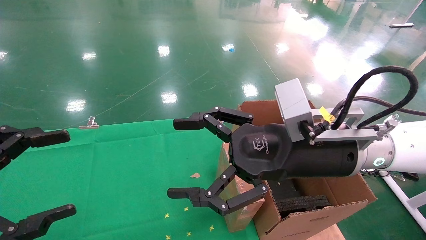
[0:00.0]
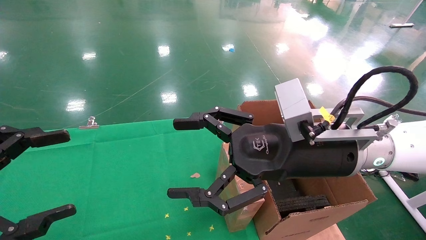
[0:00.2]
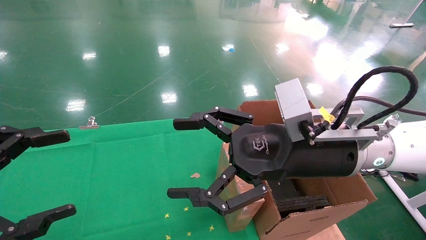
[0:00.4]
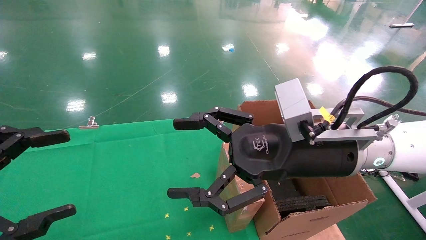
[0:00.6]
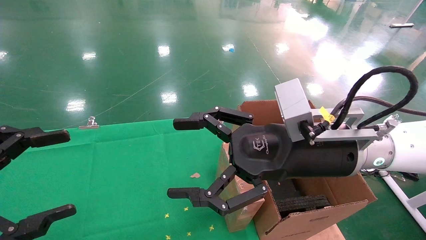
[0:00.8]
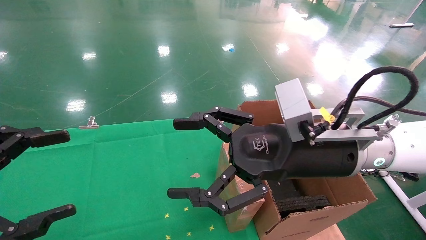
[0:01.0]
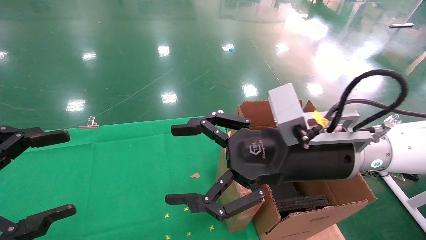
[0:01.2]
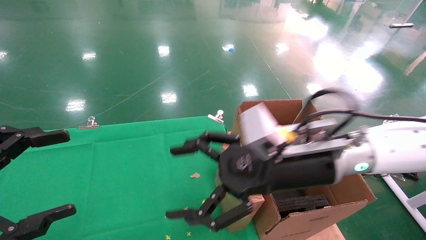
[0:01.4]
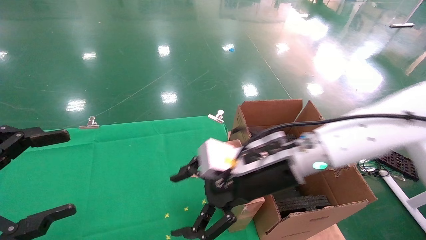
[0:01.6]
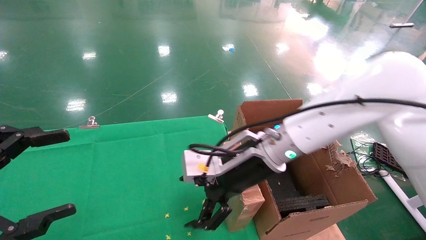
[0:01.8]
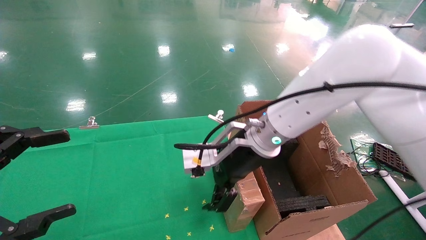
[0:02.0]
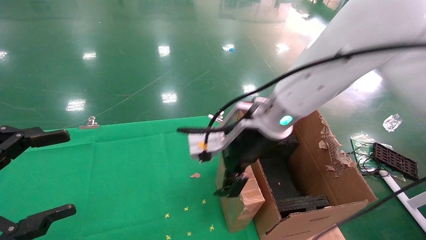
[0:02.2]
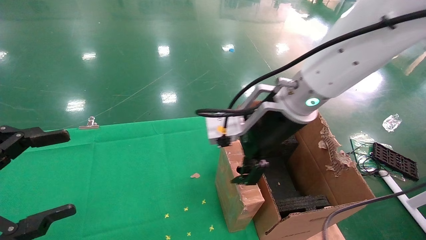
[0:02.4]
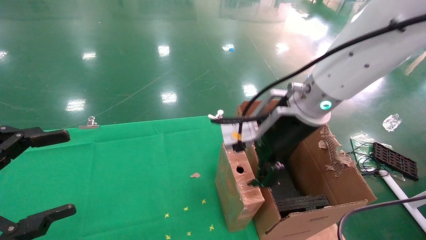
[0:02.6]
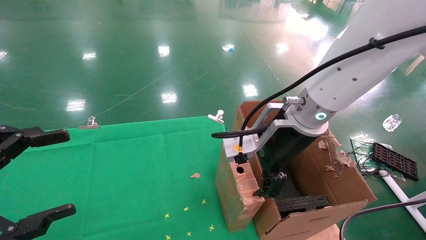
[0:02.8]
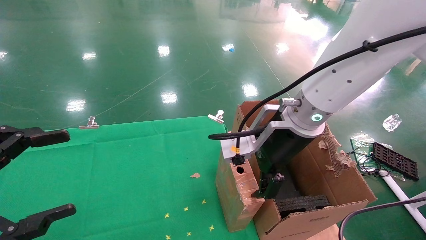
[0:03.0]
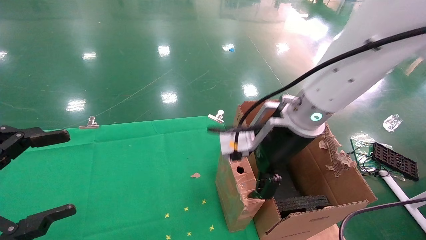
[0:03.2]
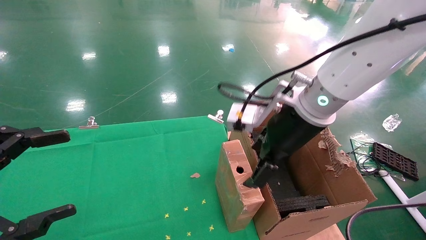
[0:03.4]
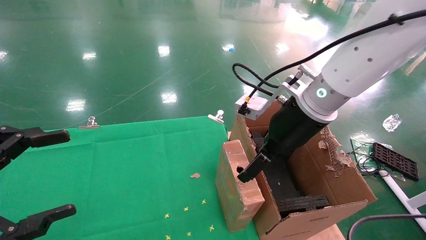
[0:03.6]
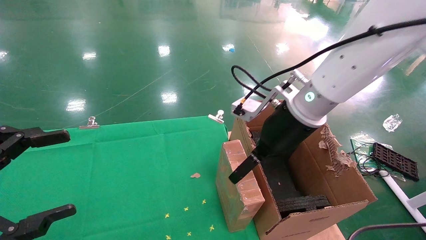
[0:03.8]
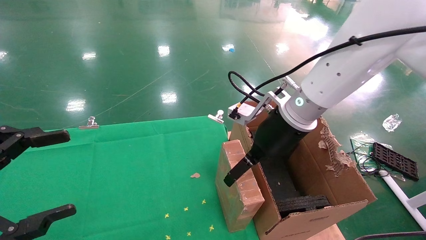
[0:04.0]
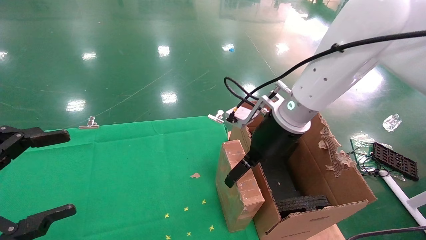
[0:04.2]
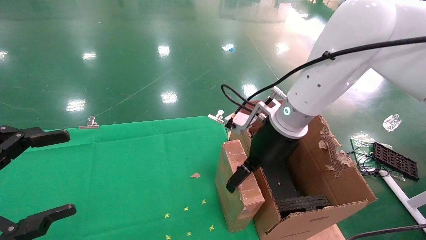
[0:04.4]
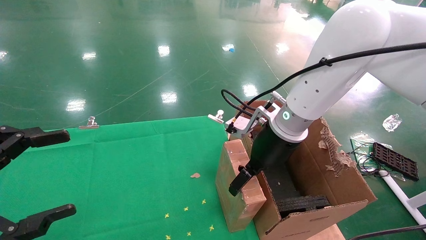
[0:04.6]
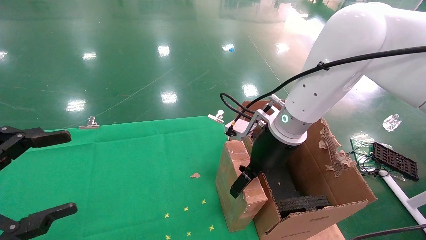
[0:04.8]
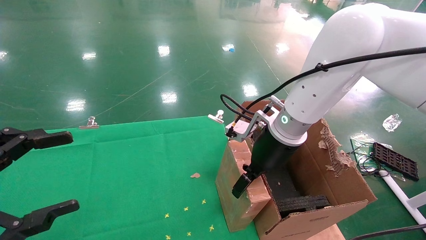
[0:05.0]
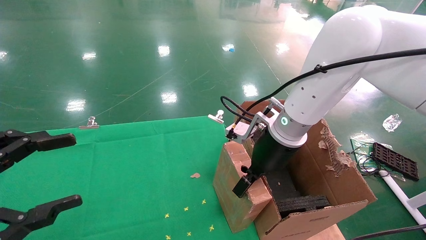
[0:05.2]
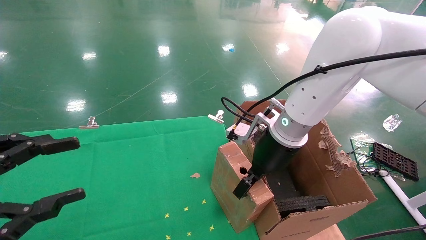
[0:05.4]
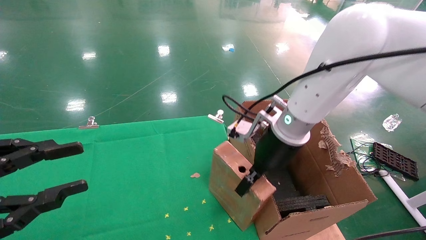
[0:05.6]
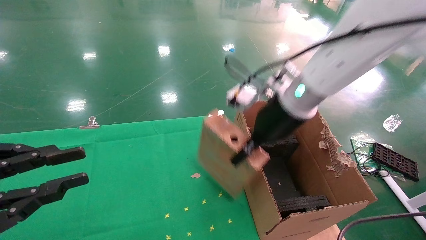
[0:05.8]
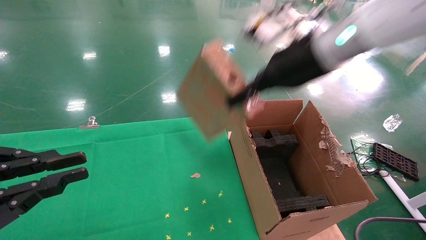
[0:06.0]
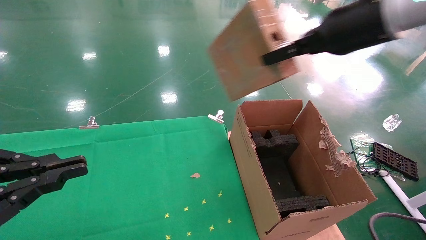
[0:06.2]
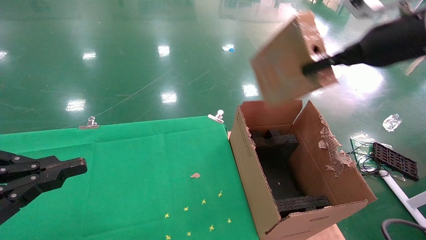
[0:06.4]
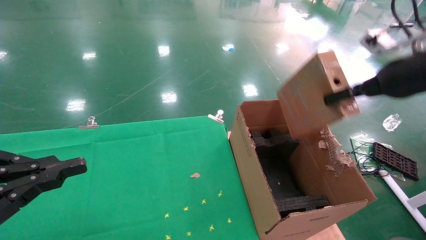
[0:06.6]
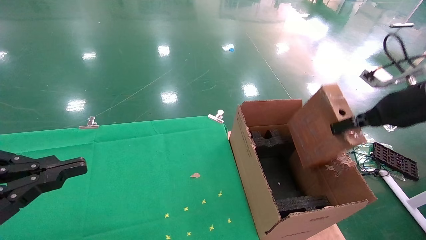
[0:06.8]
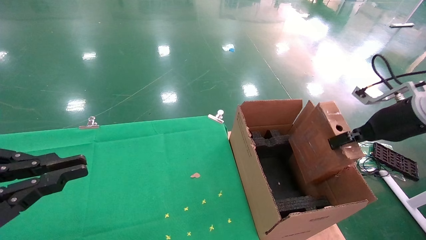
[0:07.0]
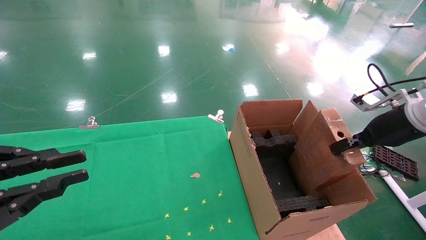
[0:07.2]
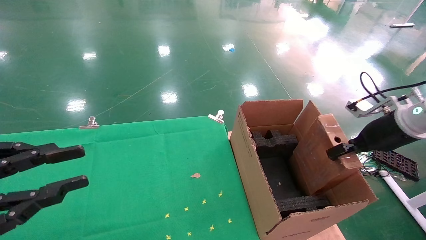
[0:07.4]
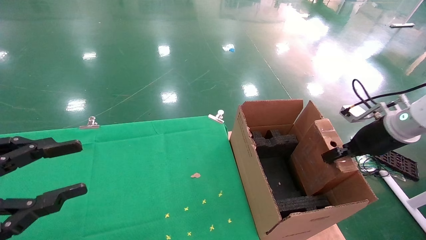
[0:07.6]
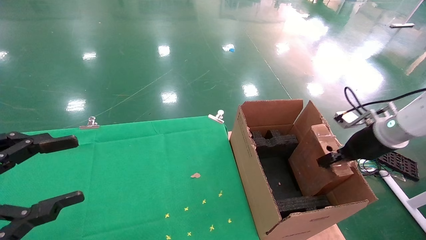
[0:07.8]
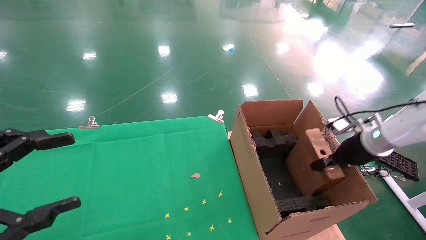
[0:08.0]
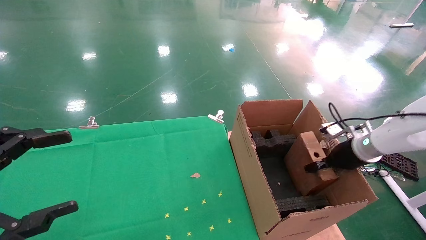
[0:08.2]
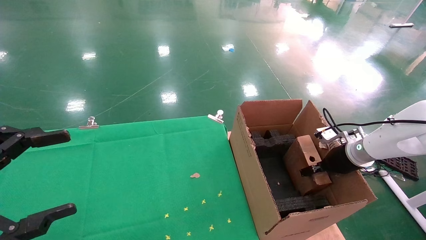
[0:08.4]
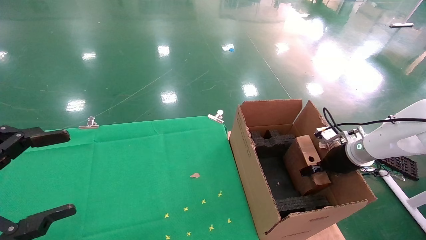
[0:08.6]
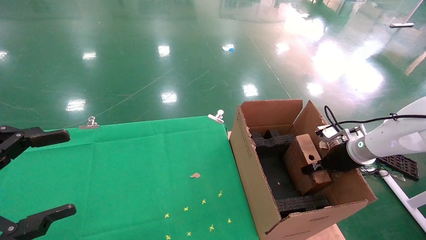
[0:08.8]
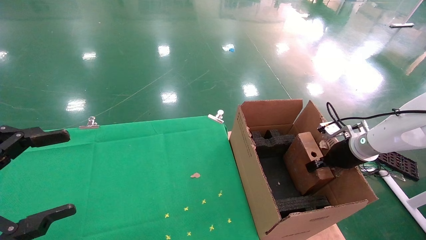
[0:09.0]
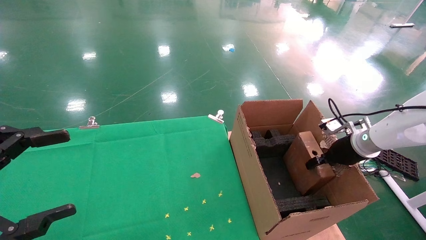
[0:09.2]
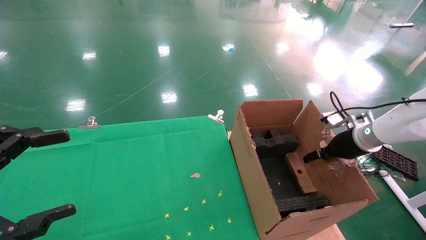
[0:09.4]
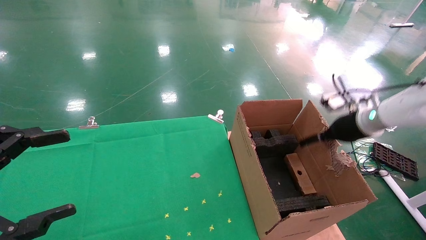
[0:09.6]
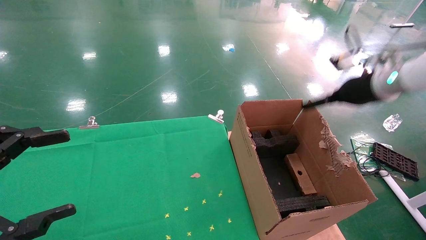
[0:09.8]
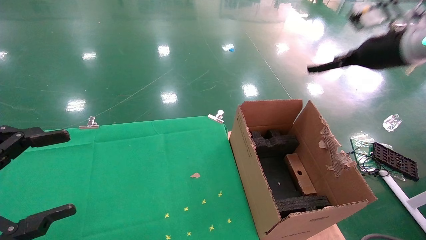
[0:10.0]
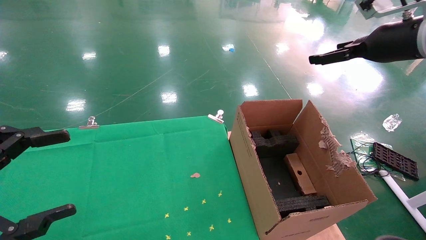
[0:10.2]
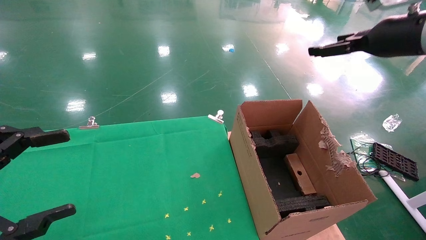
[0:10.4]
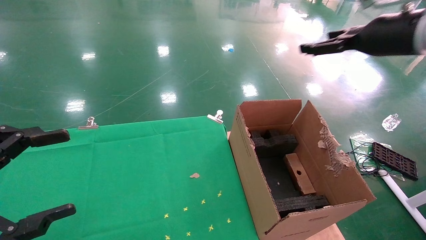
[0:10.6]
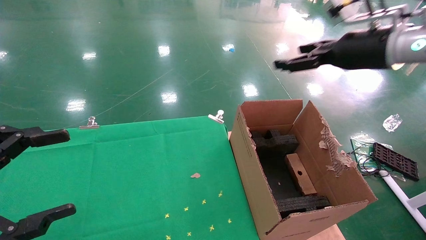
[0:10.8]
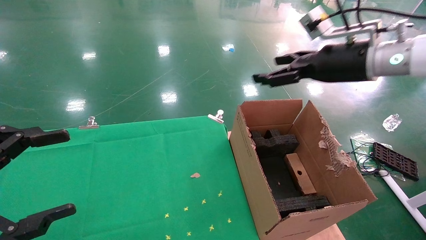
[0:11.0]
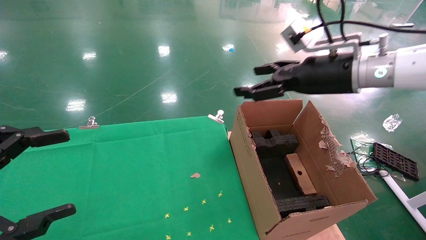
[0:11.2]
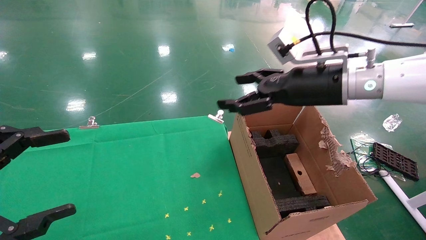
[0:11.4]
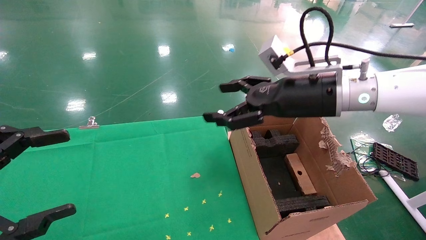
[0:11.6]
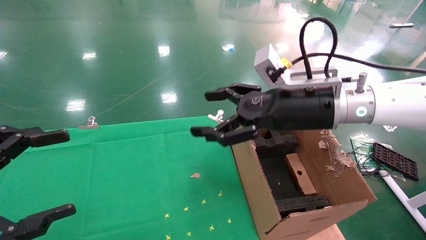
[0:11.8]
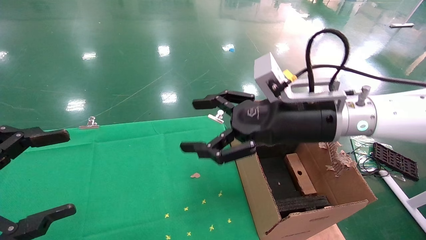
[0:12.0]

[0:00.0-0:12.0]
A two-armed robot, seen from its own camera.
Task of the whole recording: using a robotic arm to pick up a cardboard box and palace it the carton.
Step, 0:01.2 to 0:05.4: Pick up the mouse and the power cord paper box.
Step, 0:05.6 to 0:10.0: Place the mouse and the power cord paper box into the container.
0:00.0 to 0:01.6: The right gripper ends up about 10 cm from where it was.
0:01.6 to 0:03.0: The right gripper goes approximately 5 cm upward.
0:03.0 to 0:04.4: The right gripper moves about 5 cm.
0:04.4 to 0:06.0: The left gripper closes its fingers; the right gripper moves upward and to the right, roughly 15 cm, and closes its fingers.
0:06.0 to 0:07.6: The right gripper heads to the right and downward, covering about 25 cm.
0:07.6 to 0:09.0: The right gripper shifts some 10 cm downward and forward. The left gripper opens its fingers.
0:09.0 to 0:10.4: The right gripper is displaced upward by roughly 25 cm, and opens its fingers.
0:10.4 to 0:12.0: The right gripper shifts roughly 25 cm to the left and downward.

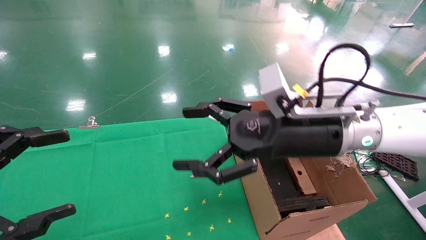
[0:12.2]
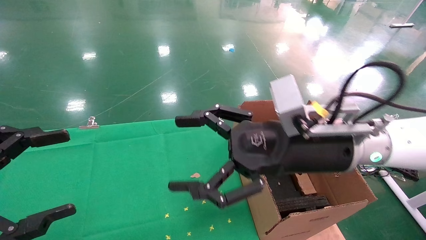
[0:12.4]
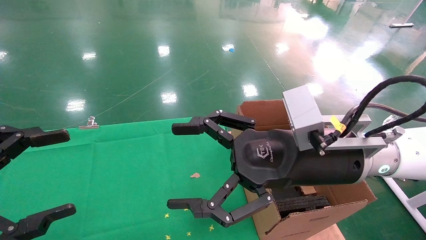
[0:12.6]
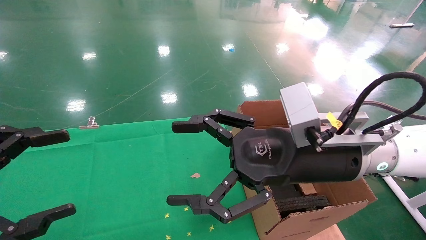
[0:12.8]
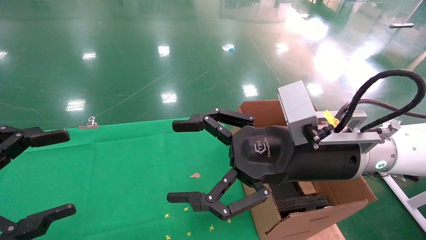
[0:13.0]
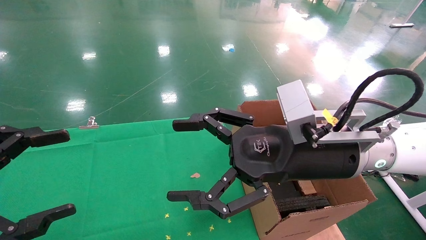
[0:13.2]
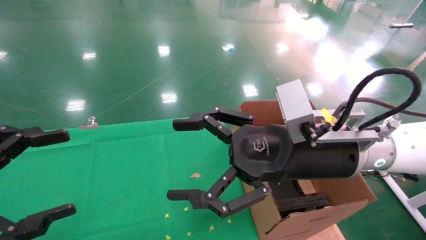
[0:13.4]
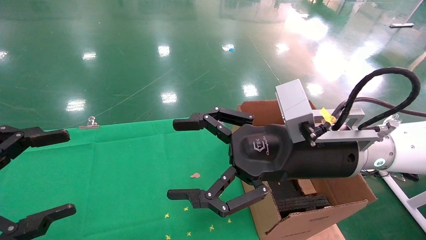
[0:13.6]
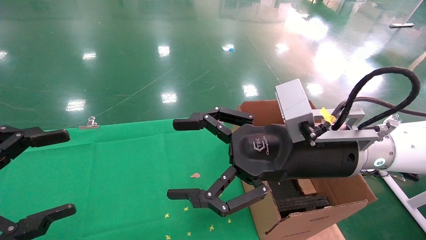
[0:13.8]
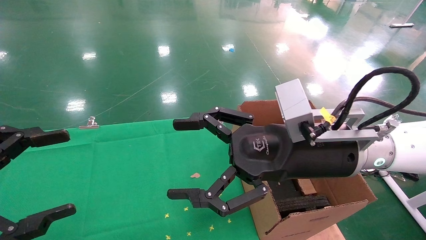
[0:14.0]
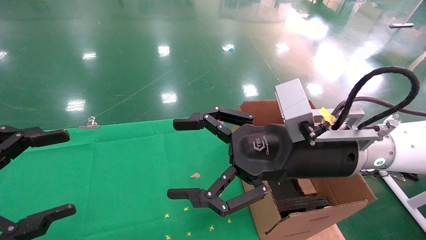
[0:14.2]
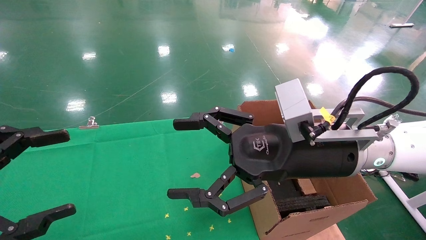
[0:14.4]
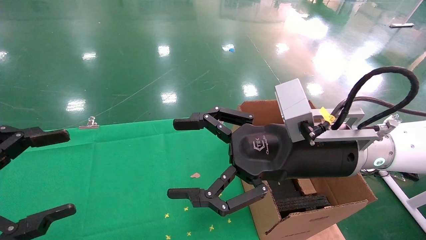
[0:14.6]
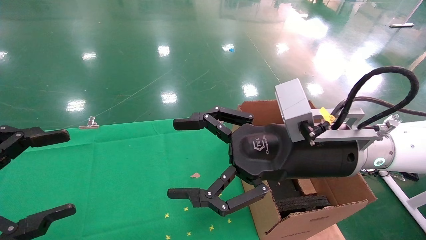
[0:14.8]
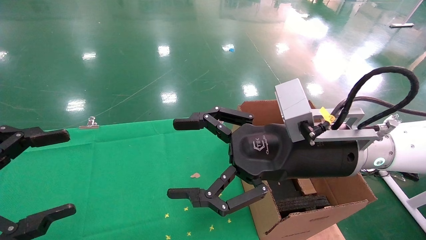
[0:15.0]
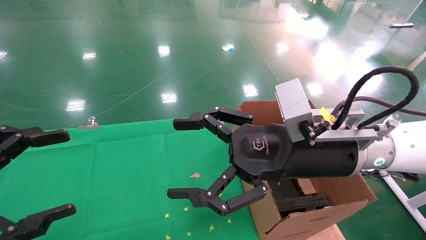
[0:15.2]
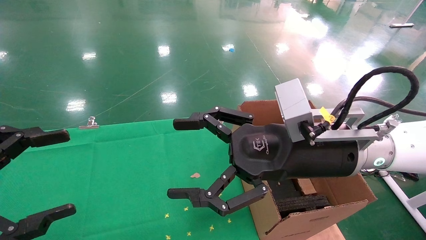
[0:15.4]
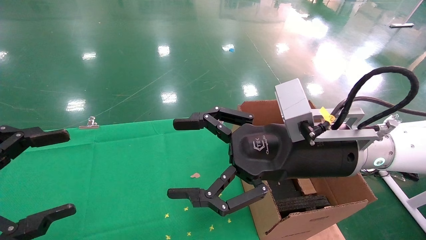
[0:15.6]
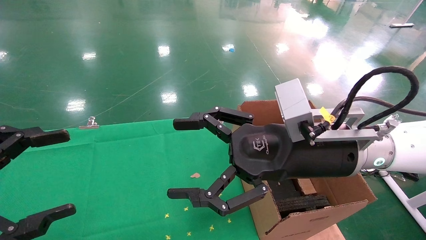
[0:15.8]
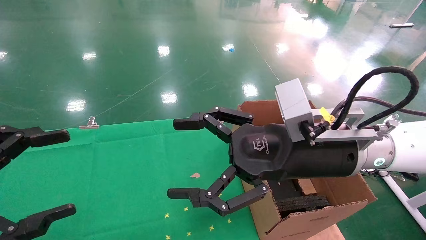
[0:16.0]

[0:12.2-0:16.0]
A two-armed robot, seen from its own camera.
Task of the whole recording: using a robotic arm to pick up a cardboard box and palace it the carton.
0:12.2 to 0:13.4: The grippers make only small movements.
0:13.4 to 0:16.0: Neither gripper changes place.
